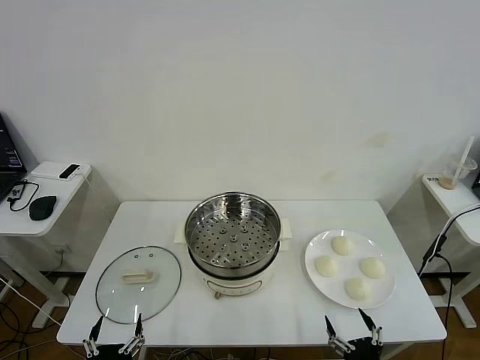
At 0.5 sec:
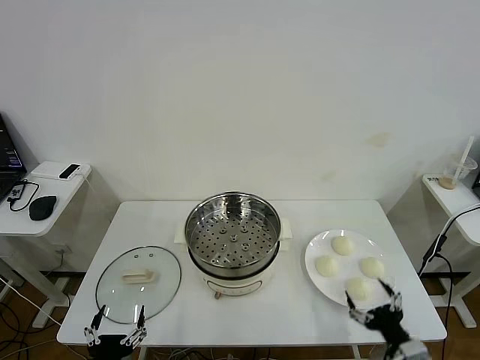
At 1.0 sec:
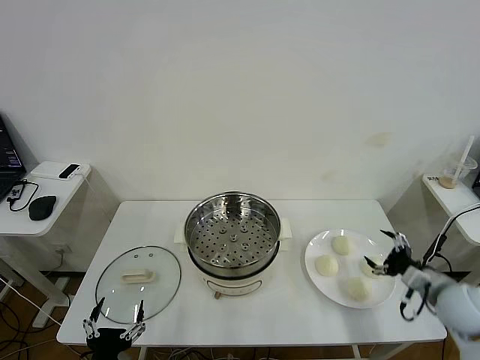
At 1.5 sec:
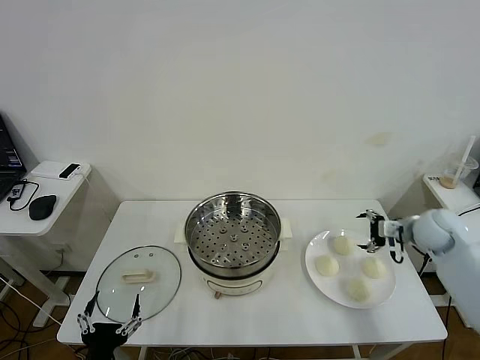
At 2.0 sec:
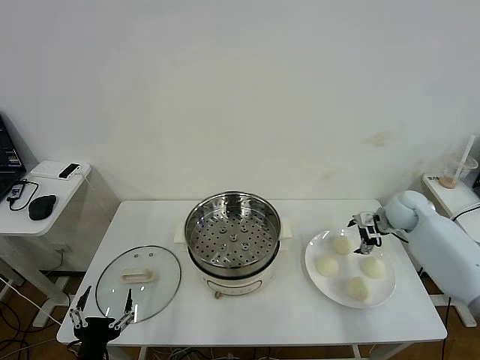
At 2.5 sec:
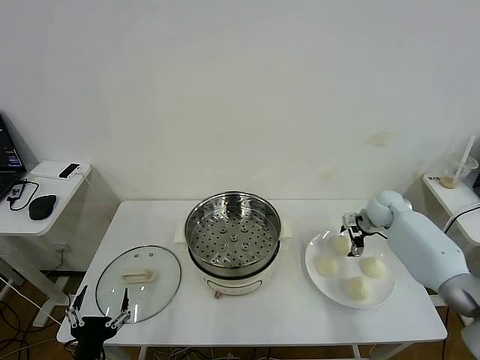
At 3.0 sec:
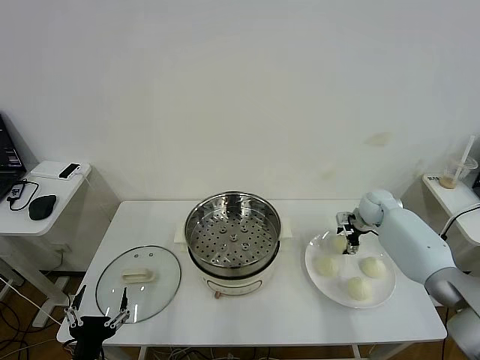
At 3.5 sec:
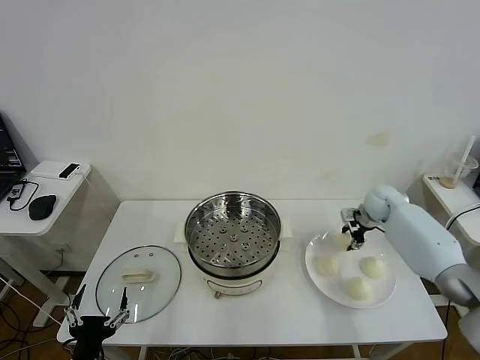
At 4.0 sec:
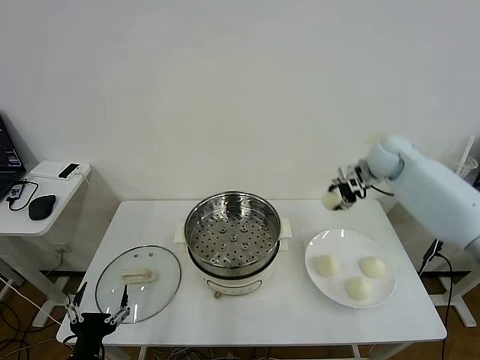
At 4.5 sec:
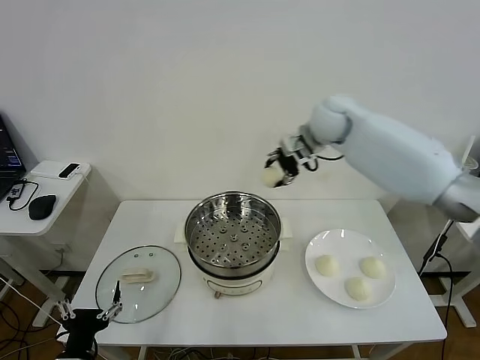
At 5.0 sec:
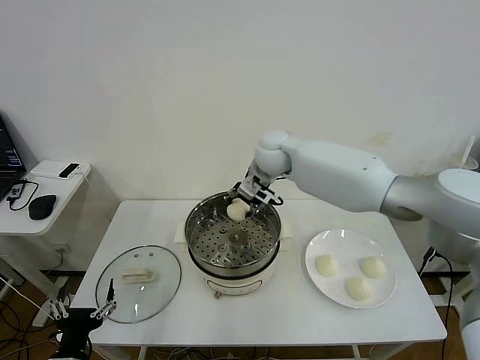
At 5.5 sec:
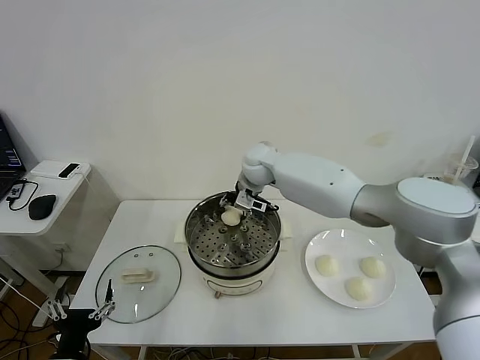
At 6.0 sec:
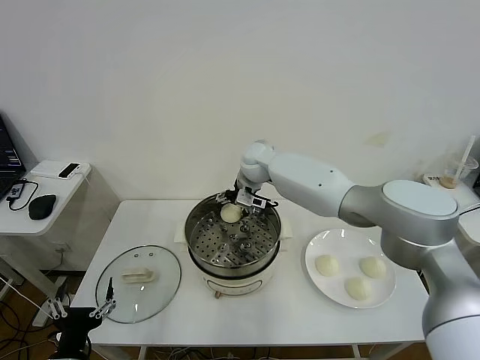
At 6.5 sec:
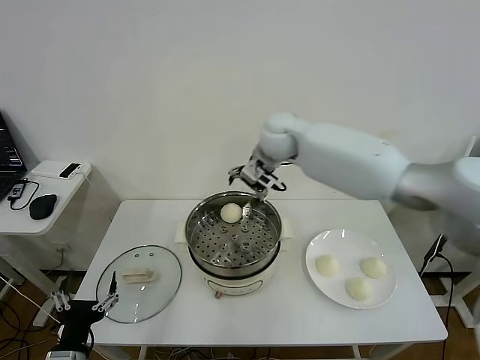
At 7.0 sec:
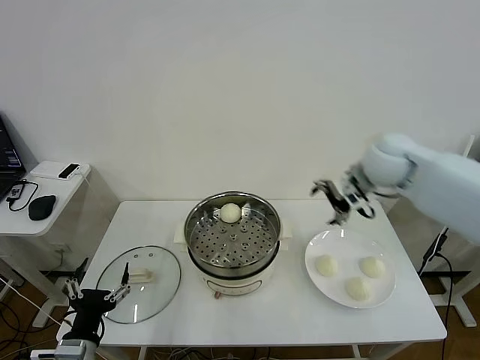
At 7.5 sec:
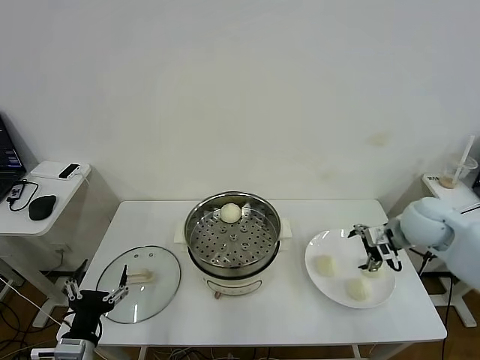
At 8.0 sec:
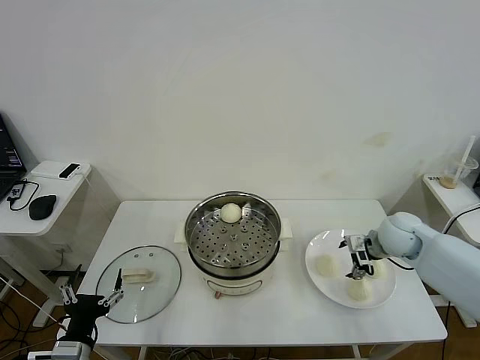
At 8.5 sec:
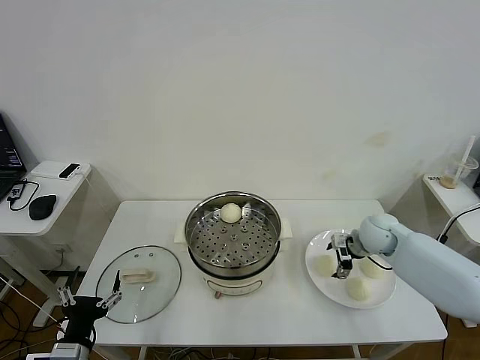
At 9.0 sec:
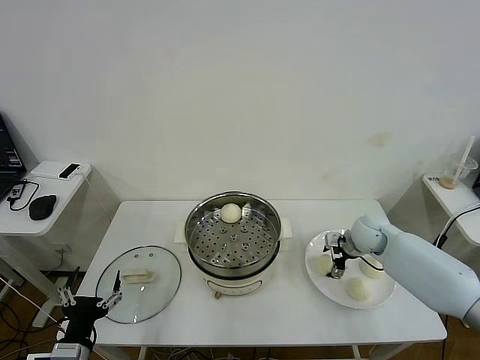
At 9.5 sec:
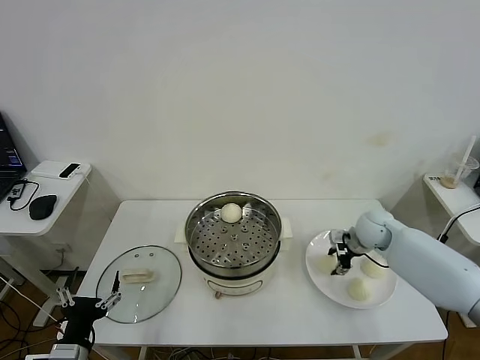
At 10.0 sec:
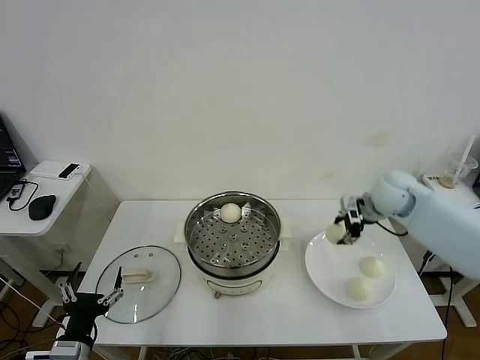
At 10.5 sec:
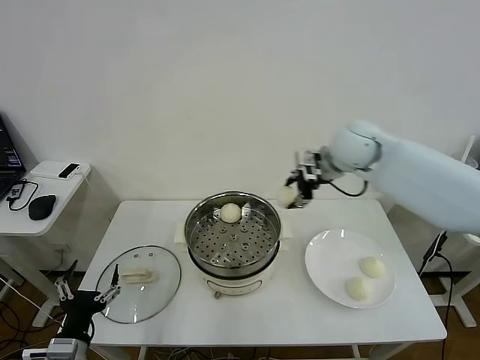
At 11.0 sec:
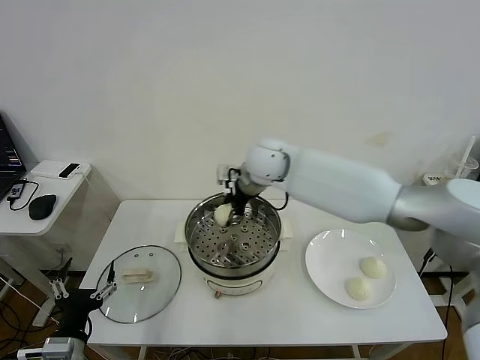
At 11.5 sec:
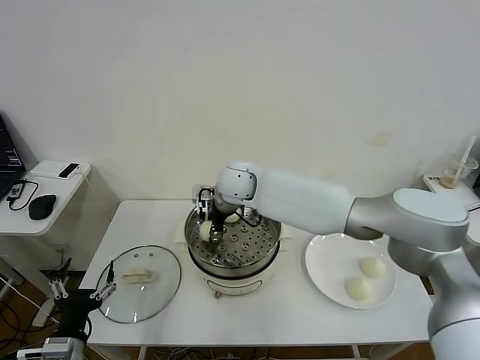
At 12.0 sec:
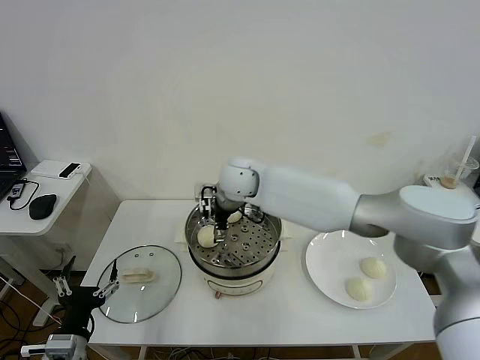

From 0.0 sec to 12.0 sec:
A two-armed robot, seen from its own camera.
Task of the whole recording: take steamed baozi put them in steamer then cover it.
Step, from 0.0 sec to 3.0 sec: Grasp the baozi in the plate with right gripper.
Step, from 3.5 sec to 6.0 sec: Place the baozi on the steamer with right gripper.
Step, from 6.5 sec to 9.0 sec: Grasp the baozi in the plate with right gripper.
From 2.0 sec to 4.0 sec: The right gripper moves upward and to the left, approximately 20 cm, and closes.
From 4.0 sec to 6.0 sec: The right gripper moves to the left, roughly 30 cm, and opens up.
From 6.0 sec to 8.0 sec: The right gripper moves to the right and backward, approximately 35 cm.
From 8.0 sec to 10.0 sec: The right gripper goes approximately 10 cm upward and forward, and closes.
From 10.0 sec to 12.0 sec: The right gripper shifts some 35 cm to the left, and opens up.

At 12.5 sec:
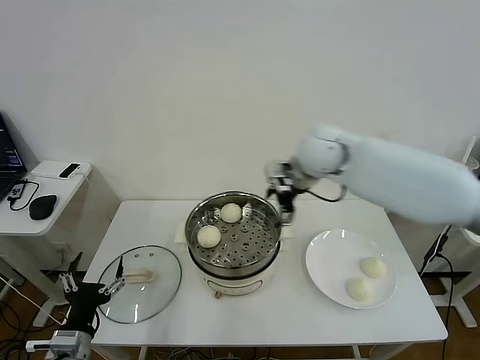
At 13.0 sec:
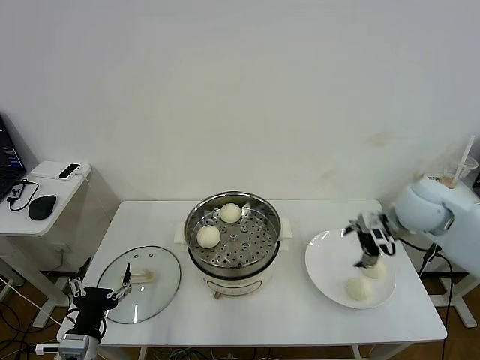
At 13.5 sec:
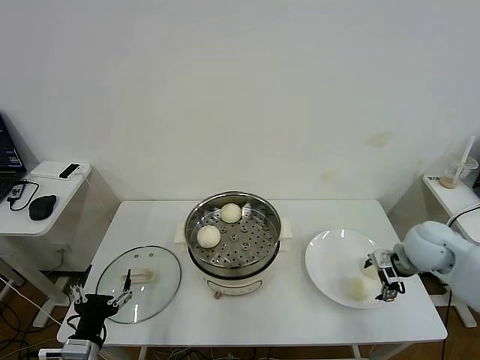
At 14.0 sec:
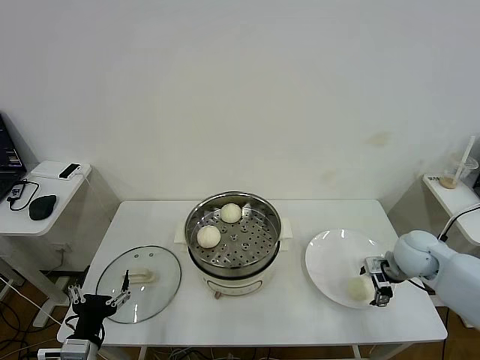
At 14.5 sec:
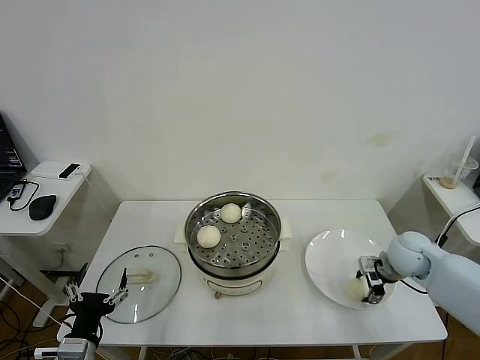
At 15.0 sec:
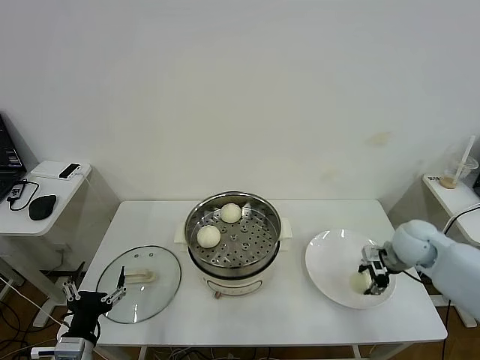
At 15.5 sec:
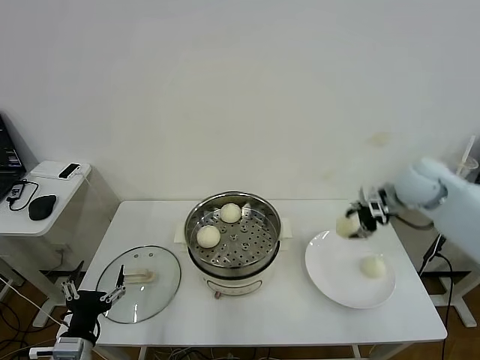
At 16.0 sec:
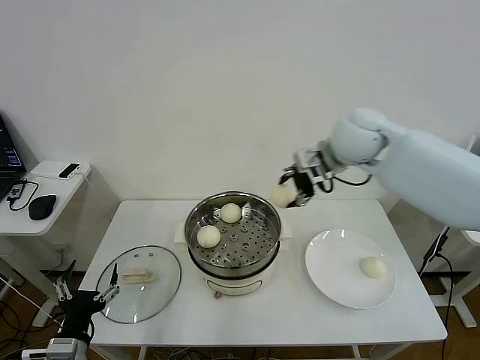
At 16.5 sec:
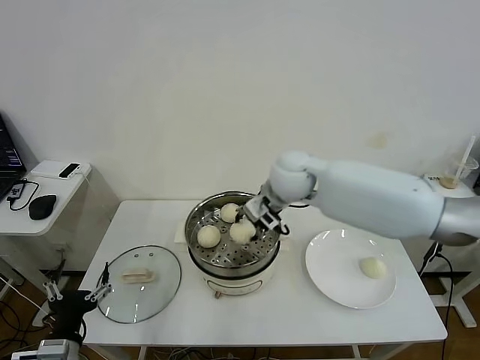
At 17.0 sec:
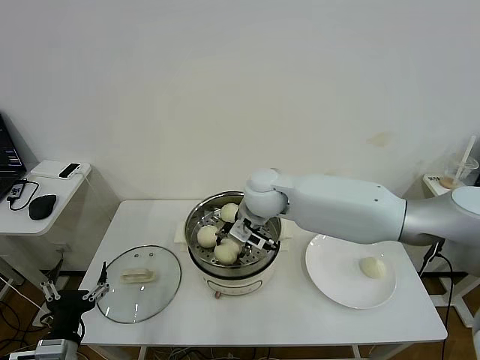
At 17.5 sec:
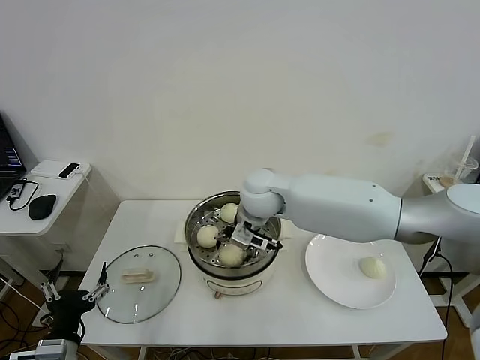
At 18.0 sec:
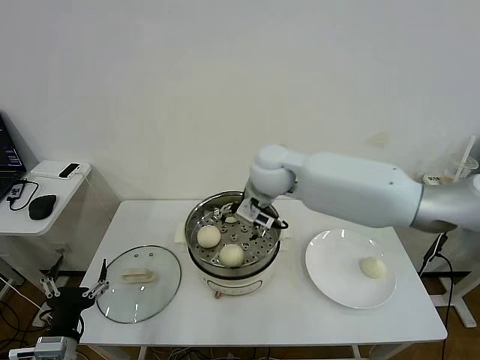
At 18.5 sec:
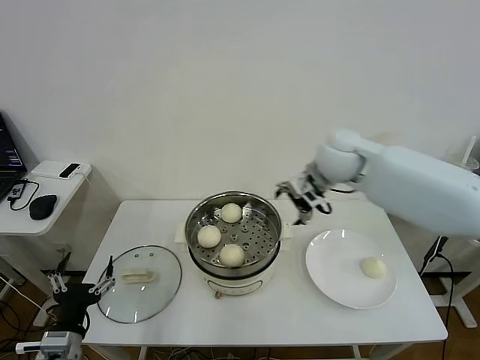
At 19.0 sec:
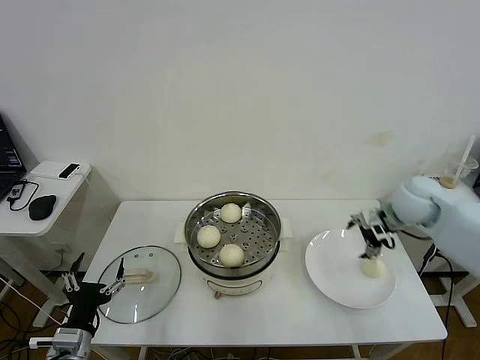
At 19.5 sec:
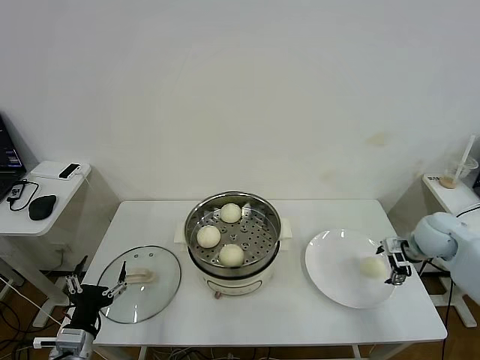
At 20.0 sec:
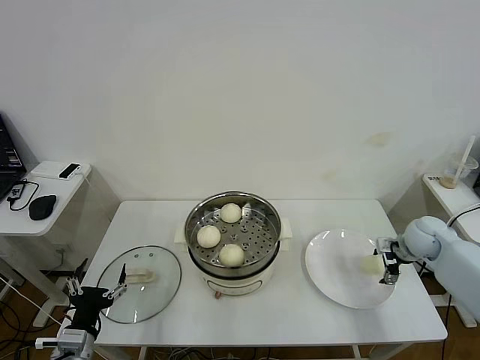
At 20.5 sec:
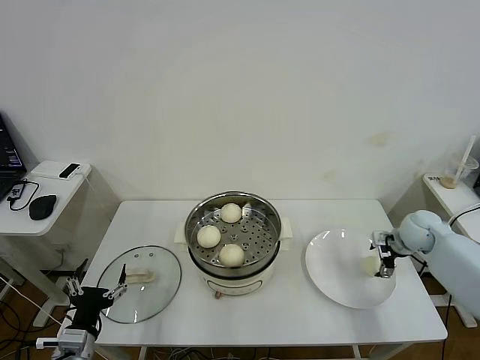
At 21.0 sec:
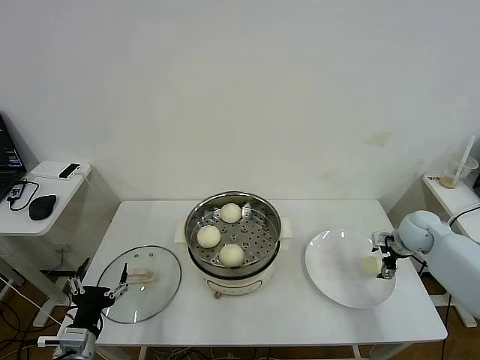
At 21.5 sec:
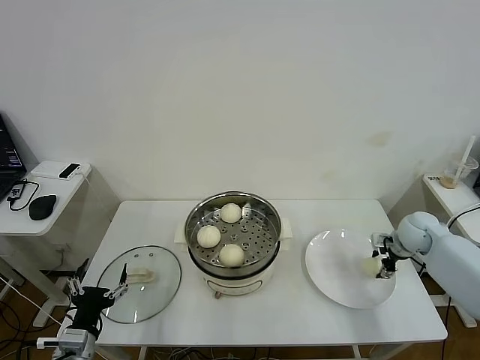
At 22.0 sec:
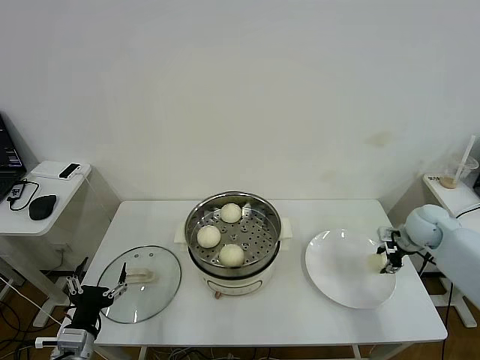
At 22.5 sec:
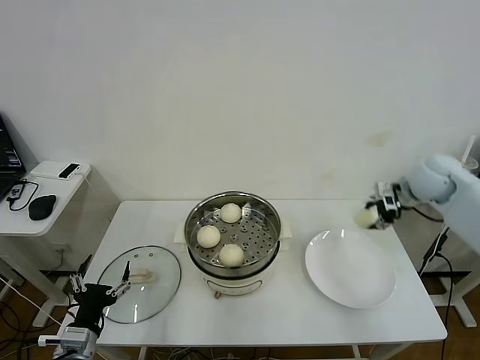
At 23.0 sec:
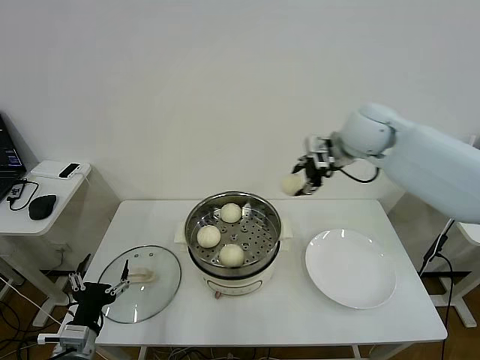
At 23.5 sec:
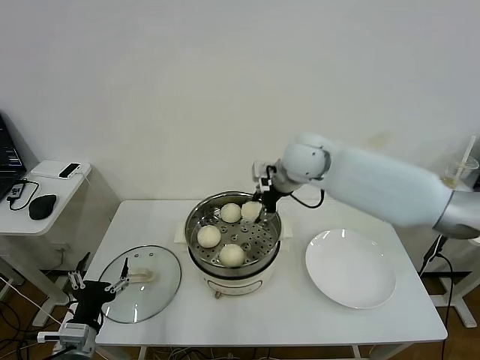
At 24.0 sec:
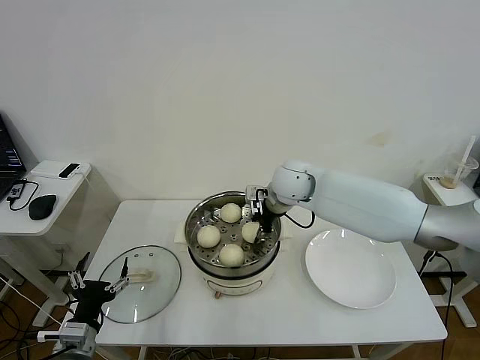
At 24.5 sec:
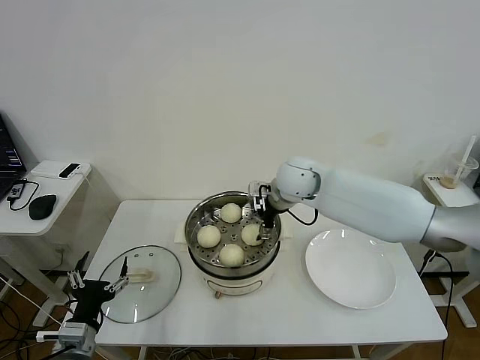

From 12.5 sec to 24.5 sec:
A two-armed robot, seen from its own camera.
Task of the whole recording: take steamed baozi put them in steamer then cover it.
Step, from 12.5 sec to 14.5 sec: Grasp the baozi in the plate with right gripper.
Step, from 15.0 sec to 17.5 sec: Place the baozi on the steamer with right gripper.
Step, from 18.0 sec to 21.5 sec: Grasp the baozi in the plate with right gripper.
From 12.5 sec to 14.5 sec: The right gripper moves downward and to the right, some 30 cm, and closes its fingers.
From 14.5 sec to 16.5 sec: The right gripper shifts some 35 cm to the left and upward.
From 16.5 sec to 18.5 sec: The right gripper is displaced to the right by approximately 10 cm, and opens up.
From 18.5 sec to 20.5 sec: The right gripper shifts roughly 30 cm to the right and downward.
From 20.5 sec to 22.5 sec: The right gripper moves upward, roughly 15 cm, and closes.
From 22.5 sec to 24.5 sec: The right gripper heads to the left, covering roughly 30 cm, and opens up.

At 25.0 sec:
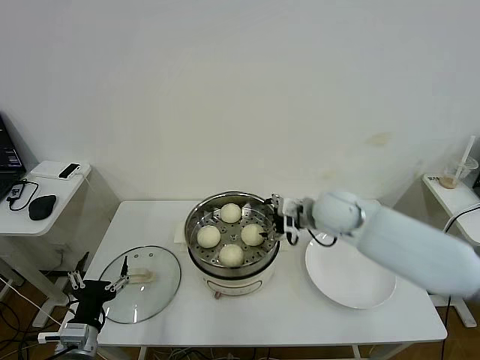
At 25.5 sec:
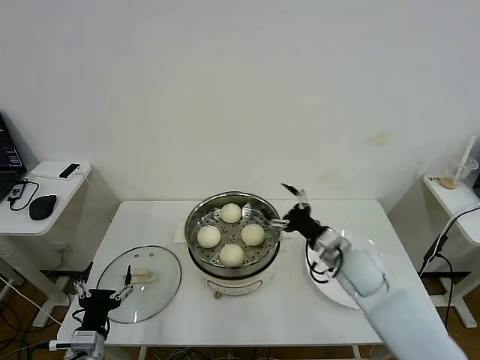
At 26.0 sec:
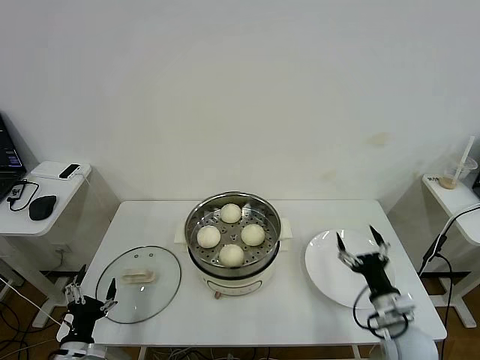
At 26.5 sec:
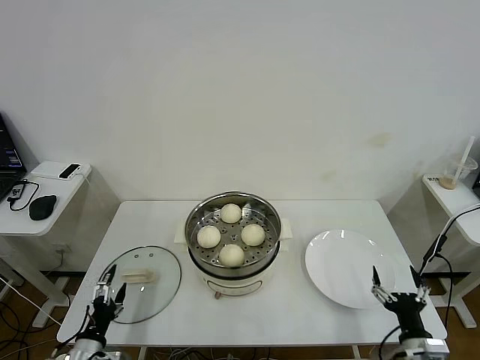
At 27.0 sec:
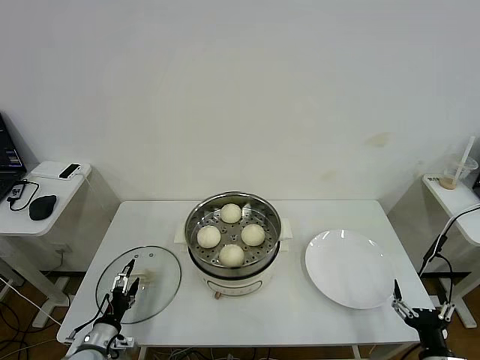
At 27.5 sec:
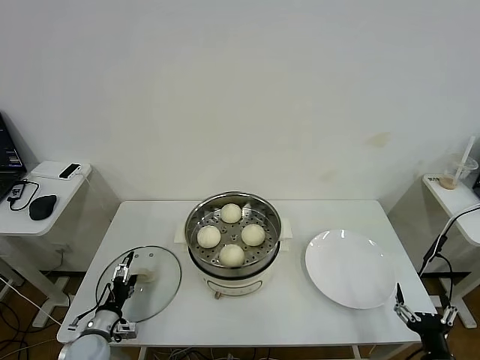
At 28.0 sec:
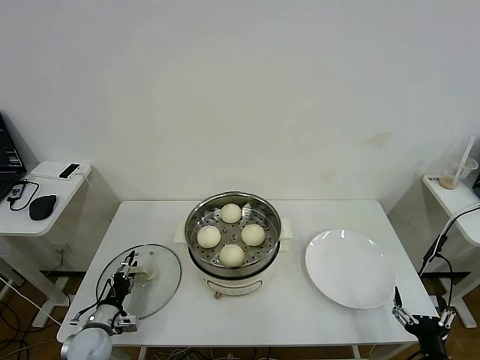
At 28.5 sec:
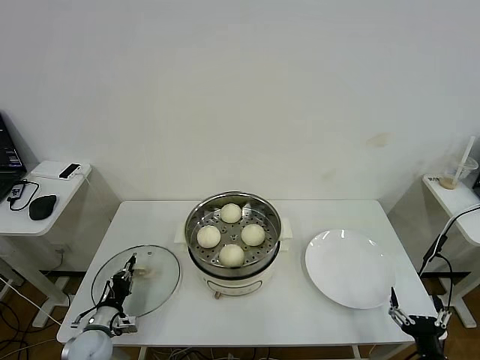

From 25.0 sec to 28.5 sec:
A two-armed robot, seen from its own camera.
Task of the whole recording: take steamed baozi put them in steamer then cover it.
Step, from 25.0 sec to 28.5 sec: Grasp the pot lid with left gripper.
From 25.0 sec to 27.0 sec: The right gripper goes some 40 cm backward, downward and to the right, while the left gripper is displaced downward by roughly 10 cm.
From 27.0 sec to 28.5 sec: The left gripper shifts about 5 cm forward, and closes.
